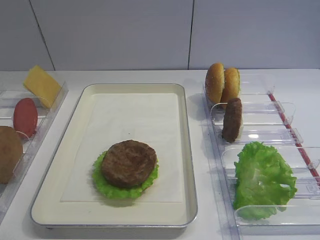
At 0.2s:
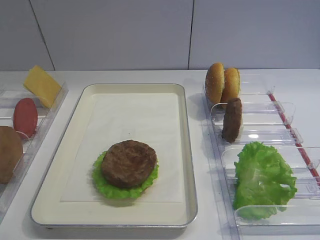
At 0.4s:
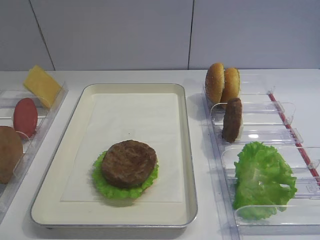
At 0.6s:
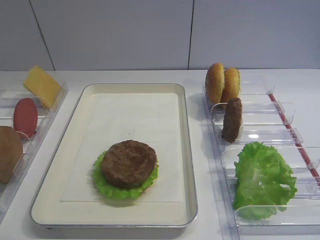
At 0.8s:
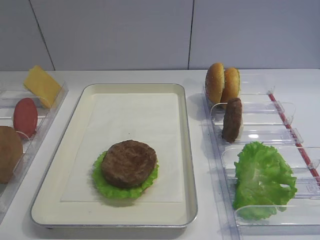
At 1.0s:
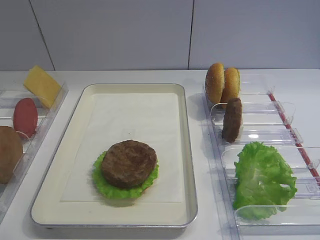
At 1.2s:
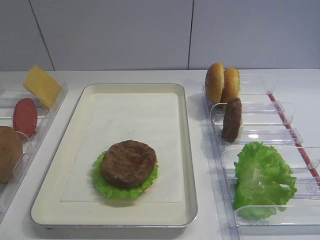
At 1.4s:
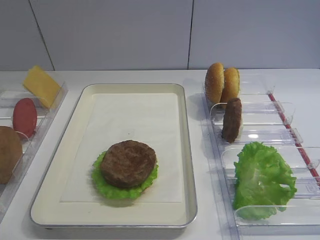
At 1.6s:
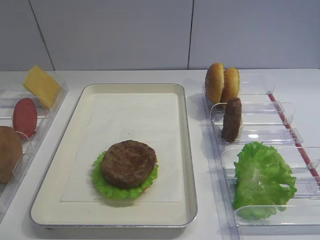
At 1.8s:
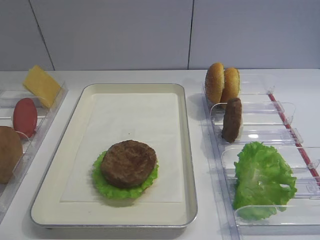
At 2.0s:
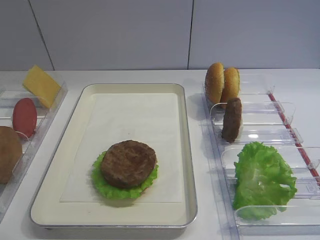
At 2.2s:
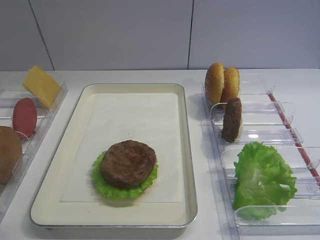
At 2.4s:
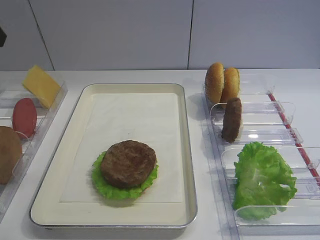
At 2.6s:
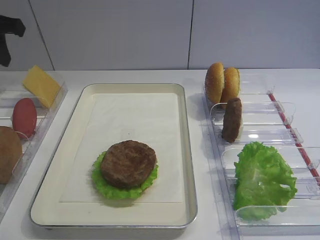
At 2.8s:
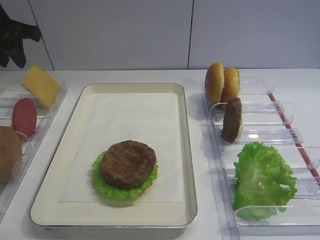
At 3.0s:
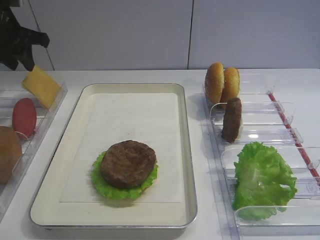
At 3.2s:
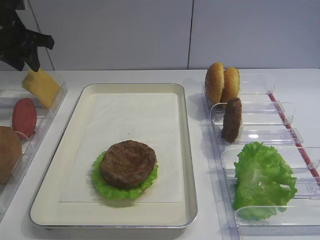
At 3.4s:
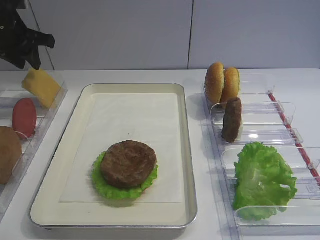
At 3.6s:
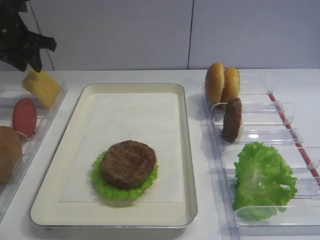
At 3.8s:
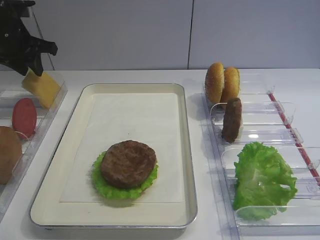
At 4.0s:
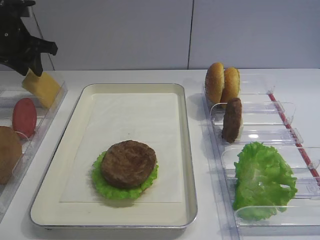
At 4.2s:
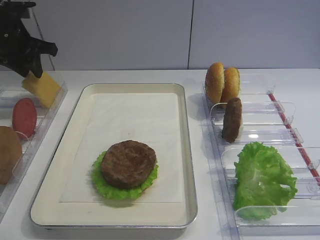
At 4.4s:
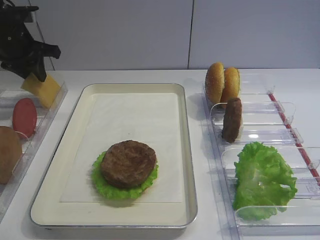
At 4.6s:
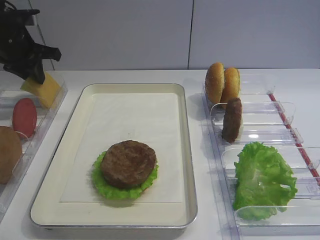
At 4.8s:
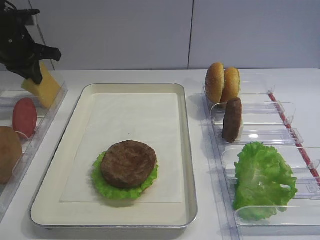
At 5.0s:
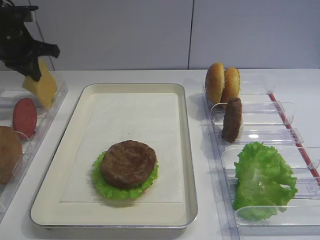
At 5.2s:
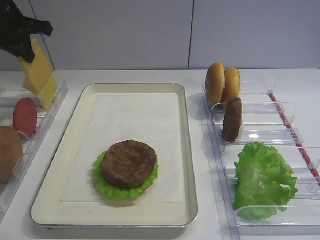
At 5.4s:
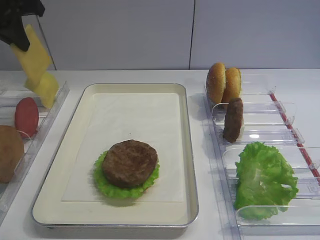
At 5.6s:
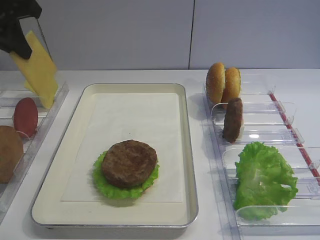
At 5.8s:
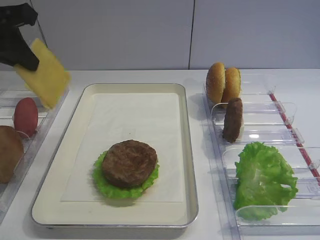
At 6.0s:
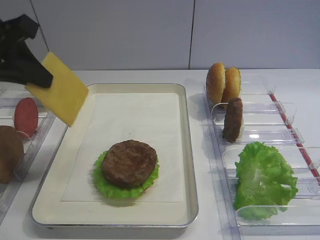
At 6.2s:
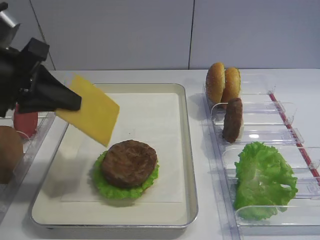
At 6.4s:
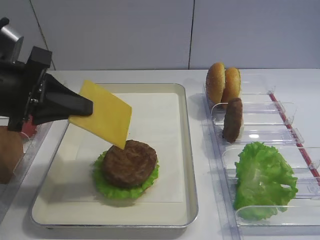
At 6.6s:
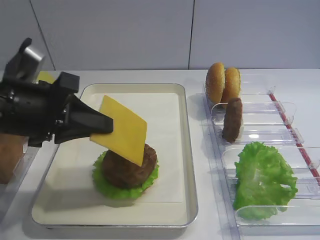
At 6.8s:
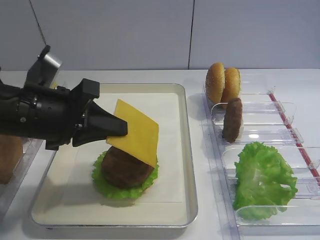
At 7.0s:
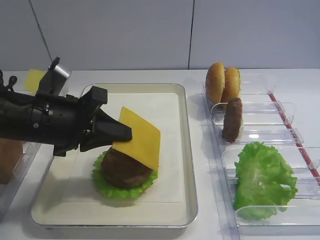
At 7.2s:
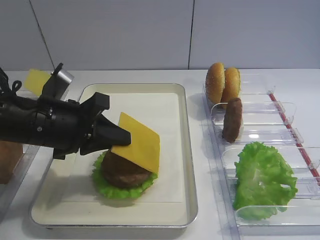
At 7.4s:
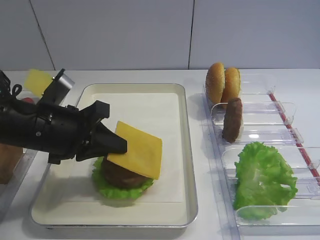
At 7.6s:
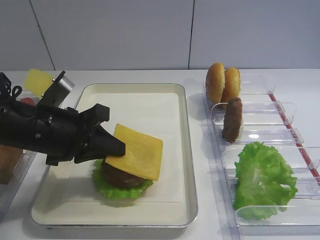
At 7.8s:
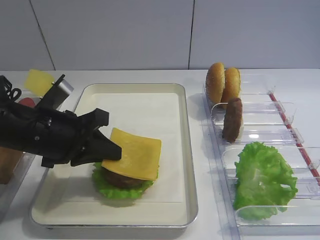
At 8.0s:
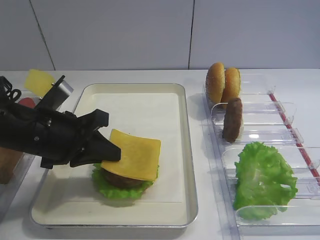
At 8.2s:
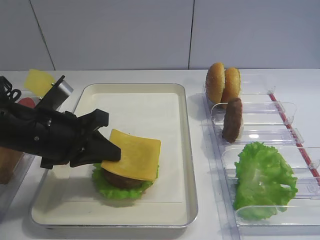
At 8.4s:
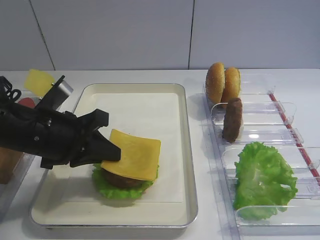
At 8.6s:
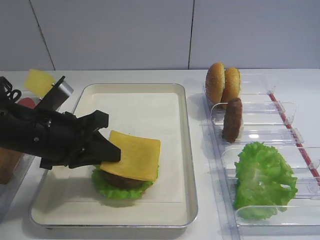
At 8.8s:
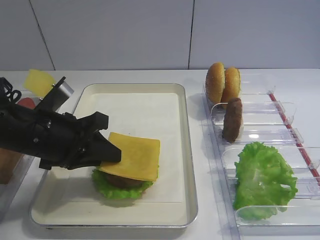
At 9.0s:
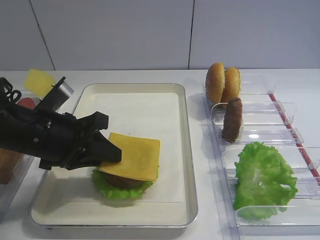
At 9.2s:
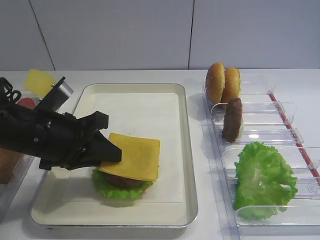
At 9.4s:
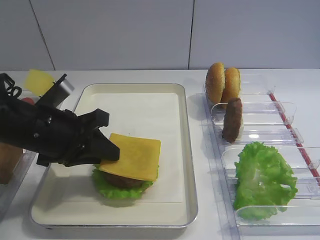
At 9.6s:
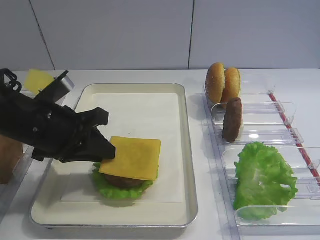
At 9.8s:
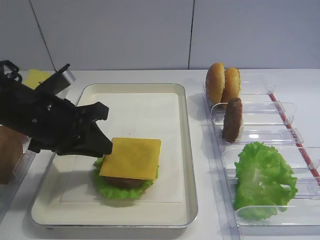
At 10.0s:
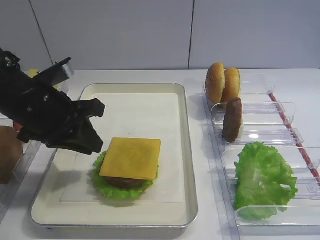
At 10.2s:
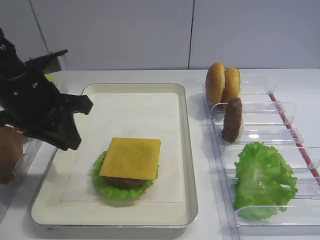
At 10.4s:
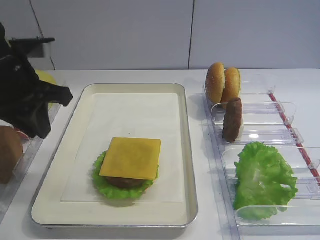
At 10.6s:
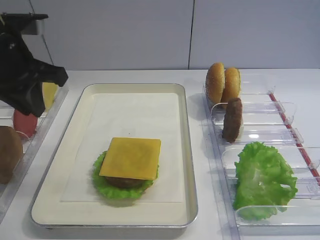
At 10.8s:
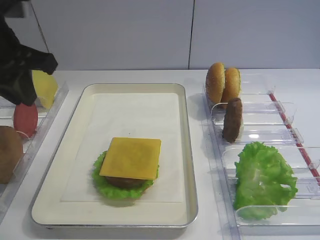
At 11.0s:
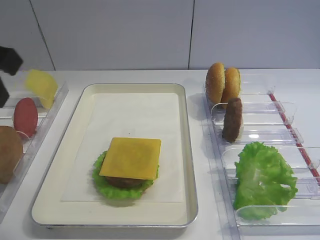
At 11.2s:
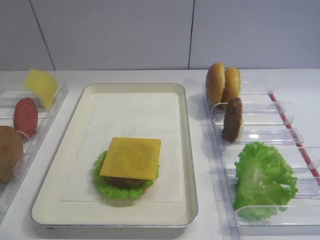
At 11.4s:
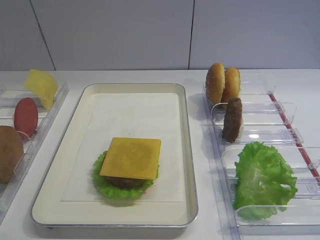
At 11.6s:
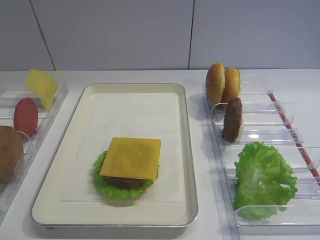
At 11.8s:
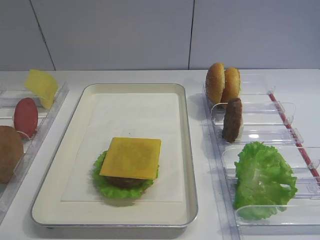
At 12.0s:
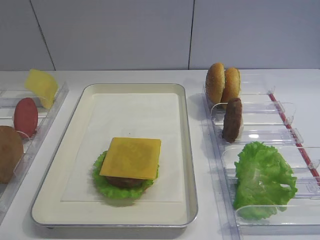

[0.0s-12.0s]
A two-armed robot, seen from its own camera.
Step, 0.0s to 5.6s: Pick up the cheese slice with the left gripper.
Step, 5.8s to 10.2s: Place the cheese slice on the cutlet with the left gripper.
1.6s to 3.0s: The left gripper is displaced forward by about 40 cm.
3.0s to 4.4s: The grippers make only small movements.
4.4s to 6.0s: The left gripper is displaced backward by about 15 cm, and closes its fingers.
6.0s to 7.6s: The left gripper is displaced downward and to the right by roughly 15 cm.
7.6s to 9.0s: The left gripper opens.
9.0s to 10.4s: The left gripper goes approximately 10 cm upward.
10.4s to 12.0s: The left gripper is displaced backward by some 25 cm.

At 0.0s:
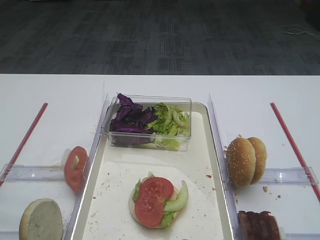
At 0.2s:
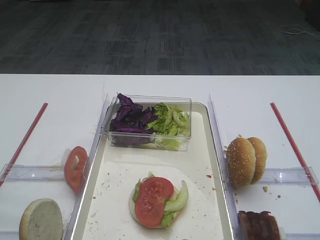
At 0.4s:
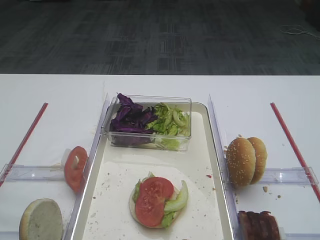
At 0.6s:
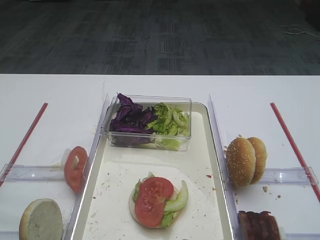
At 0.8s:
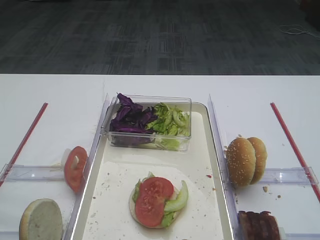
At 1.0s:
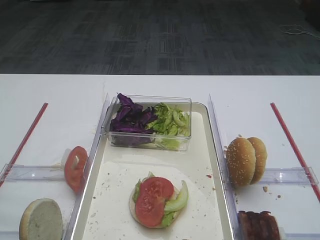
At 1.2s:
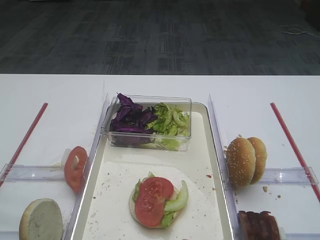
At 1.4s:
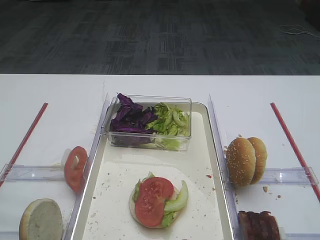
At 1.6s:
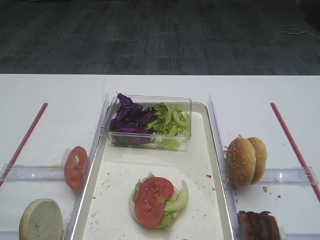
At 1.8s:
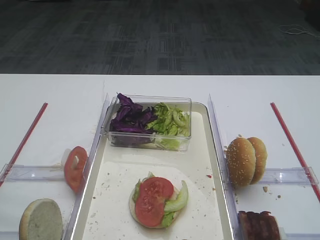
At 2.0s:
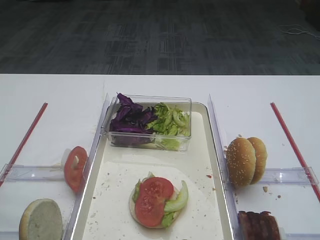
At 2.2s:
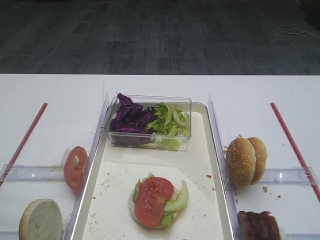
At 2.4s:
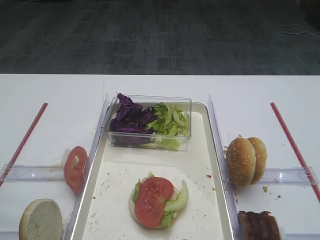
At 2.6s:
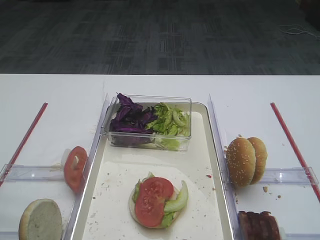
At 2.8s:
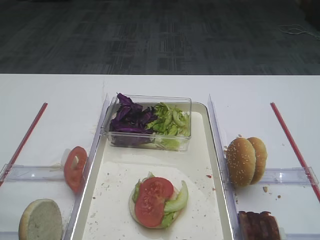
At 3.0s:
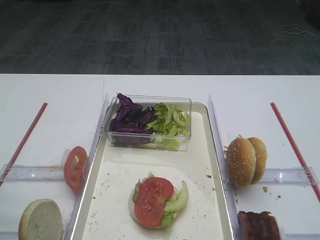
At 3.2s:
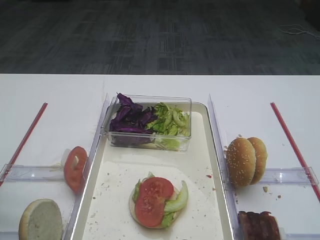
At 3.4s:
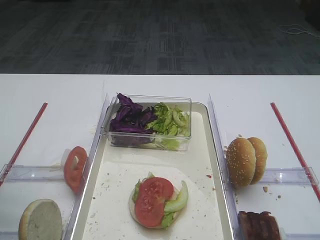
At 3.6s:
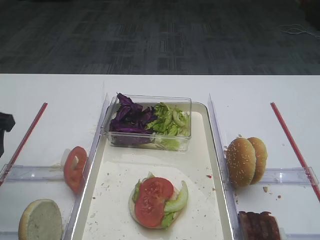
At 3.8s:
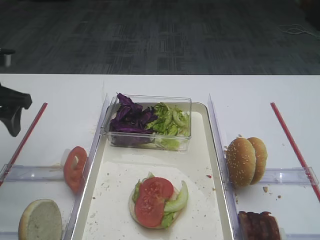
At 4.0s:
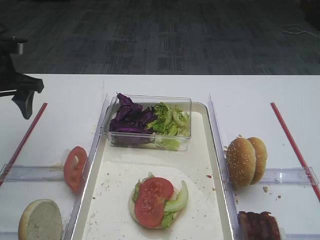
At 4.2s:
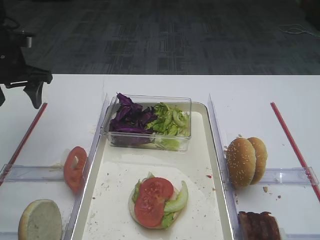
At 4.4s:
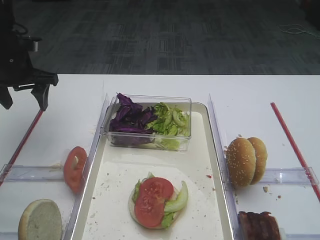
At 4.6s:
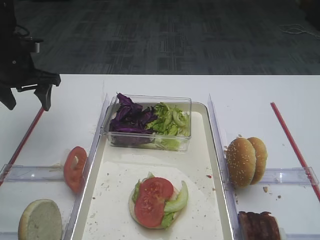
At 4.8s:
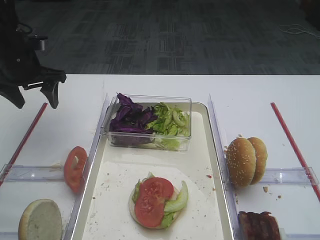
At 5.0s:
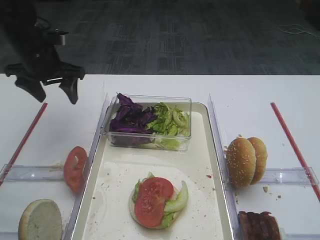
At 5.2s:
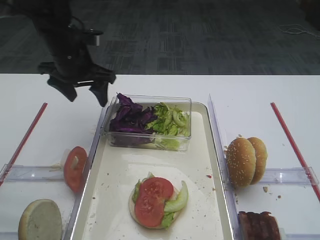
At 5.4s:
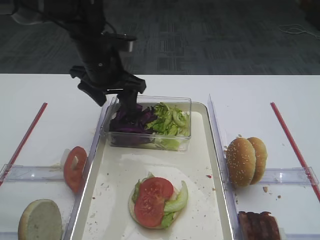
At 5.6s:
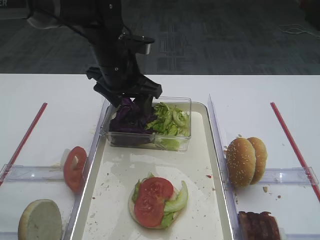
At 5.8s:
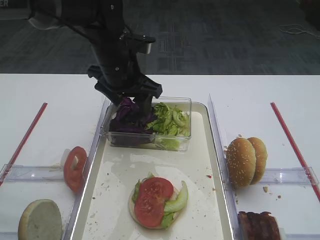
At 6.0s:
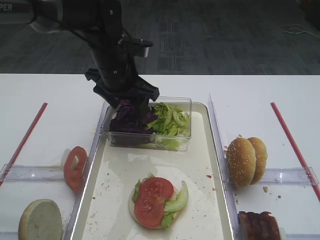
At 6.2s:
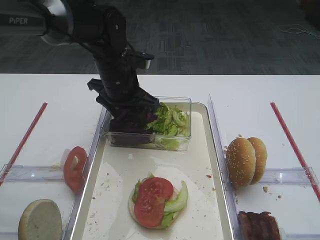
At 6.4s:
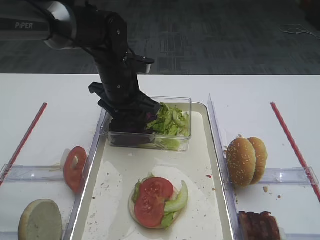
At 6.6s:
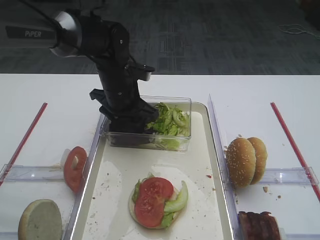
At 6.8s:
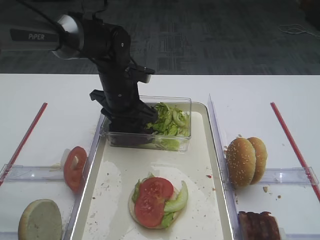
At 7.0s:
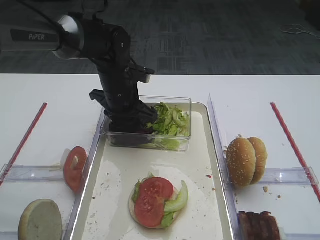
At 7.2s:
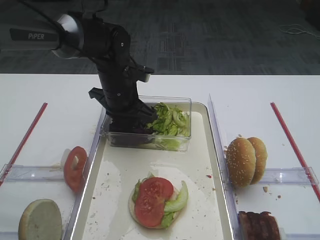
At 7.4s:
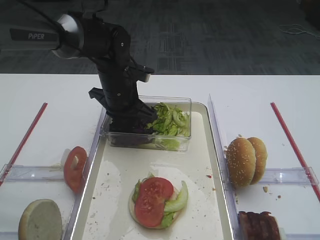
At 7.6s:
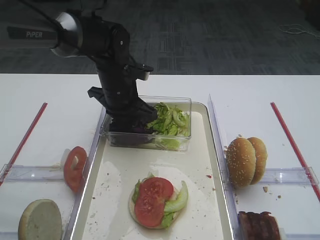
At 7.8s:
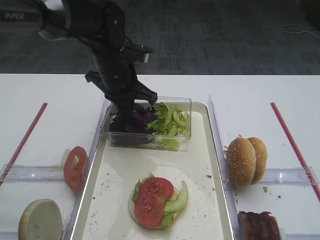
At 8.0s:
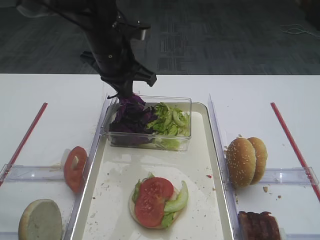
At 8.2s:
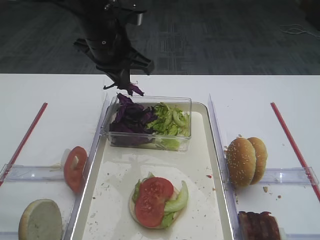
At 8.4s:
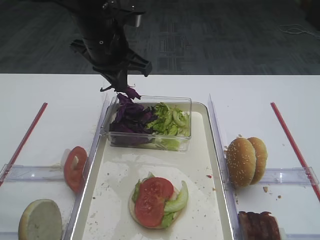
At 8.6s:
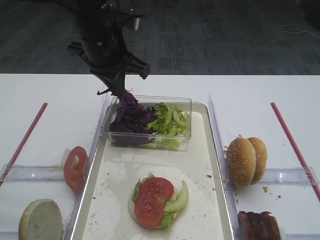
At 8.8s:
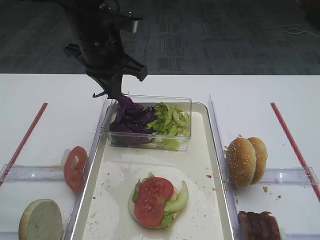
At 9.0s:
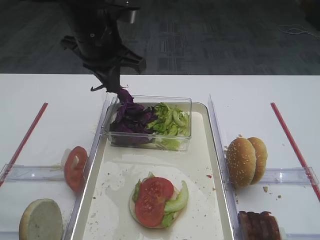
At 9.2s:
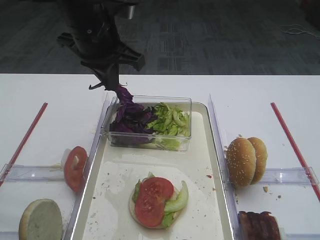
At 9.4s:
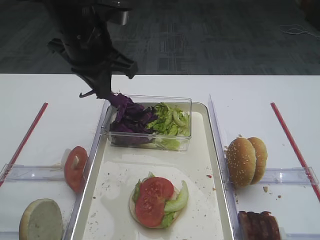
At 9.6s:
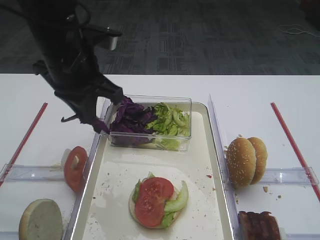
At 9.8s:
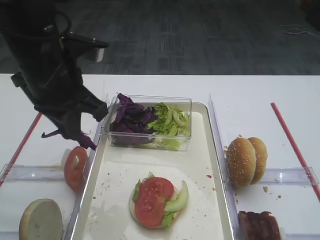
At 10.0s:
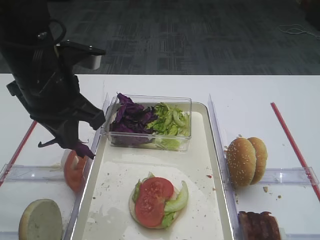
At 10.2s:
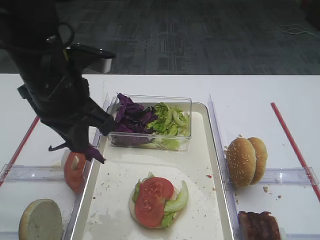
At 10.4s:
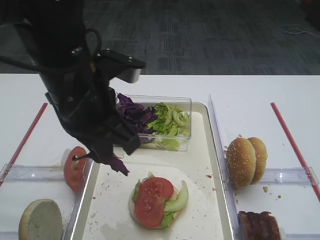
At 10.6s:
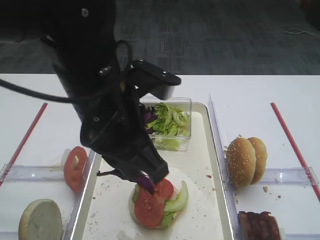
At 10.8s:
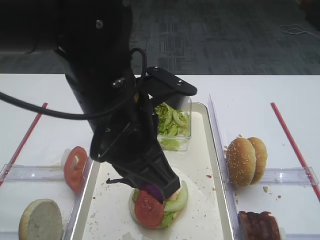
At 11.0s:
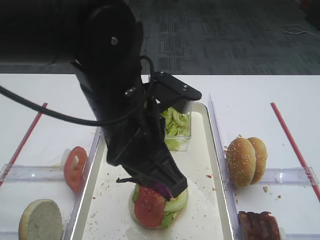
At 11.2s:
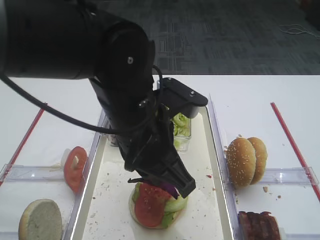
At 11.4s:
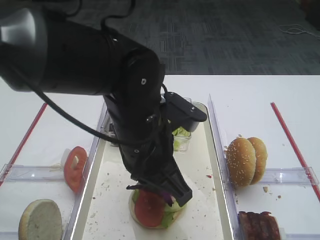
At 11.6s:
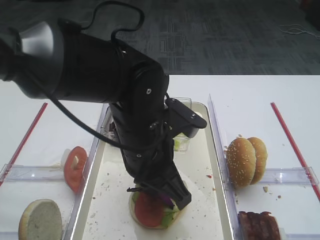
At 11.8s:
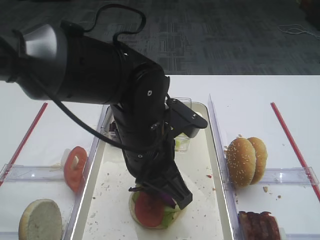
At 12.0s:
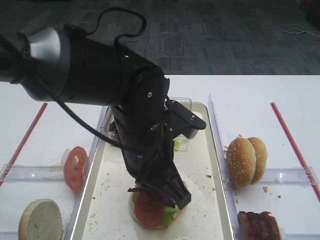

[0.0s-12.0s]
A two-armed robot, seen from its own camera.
Step, 0.0s to 8.0s: Pick up the purple cabbage with the left gripper.
3.0s to 4.4s: The left gripper moves forward, roughly 30 cm.
4.4s to 6.0s: The left gripper shifts roughly 20 cm to the right.
6.0s to 7.6s: The left gripper closes.
7.6s to 9.0s: The left gripper shifts about 15 cm upward.
9.0s to 10.4s: The left gripper shifts some 10 cm backward.
10.4s to 12.0s: The left gripper heads to the right and downward, covering some 10 cm.
